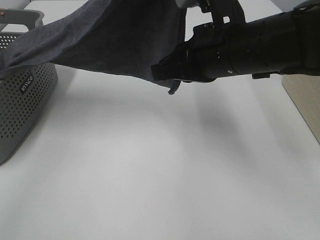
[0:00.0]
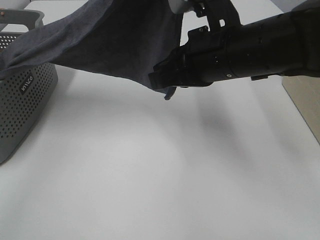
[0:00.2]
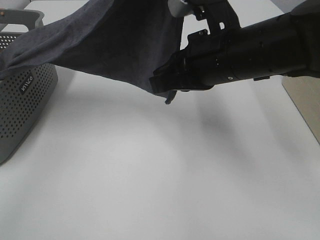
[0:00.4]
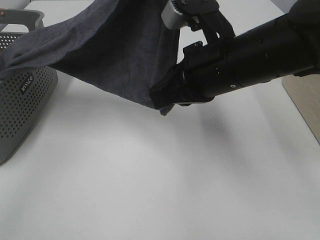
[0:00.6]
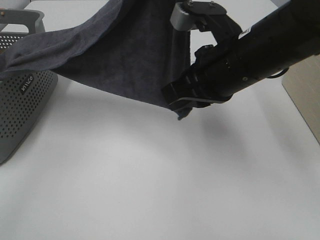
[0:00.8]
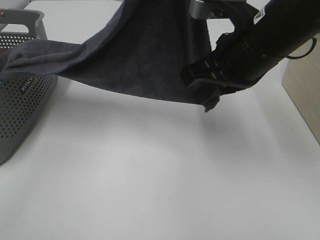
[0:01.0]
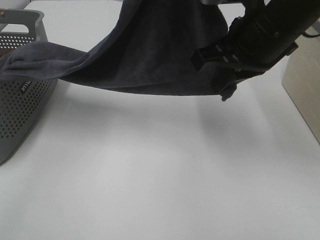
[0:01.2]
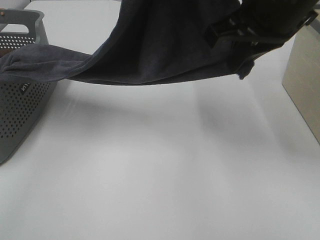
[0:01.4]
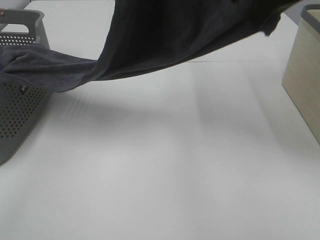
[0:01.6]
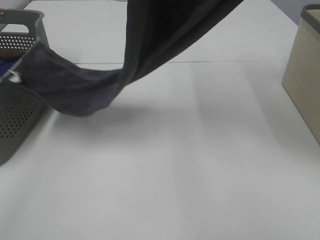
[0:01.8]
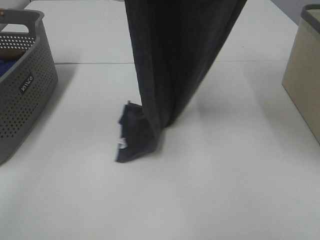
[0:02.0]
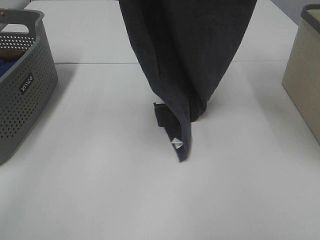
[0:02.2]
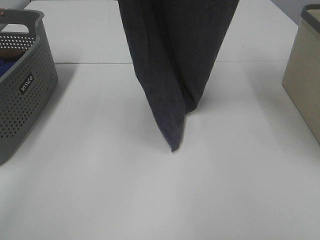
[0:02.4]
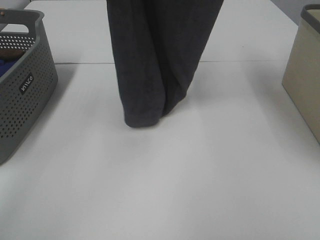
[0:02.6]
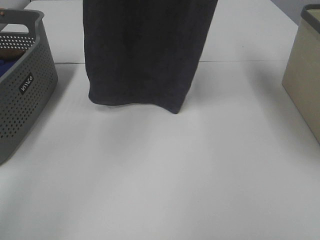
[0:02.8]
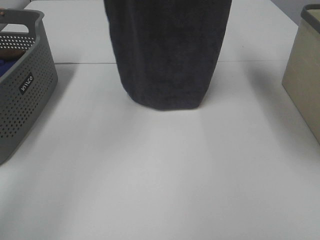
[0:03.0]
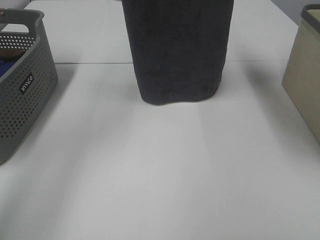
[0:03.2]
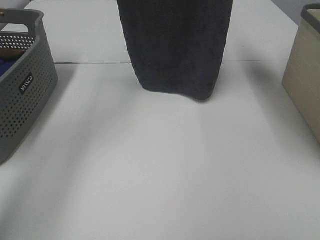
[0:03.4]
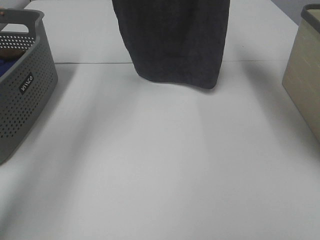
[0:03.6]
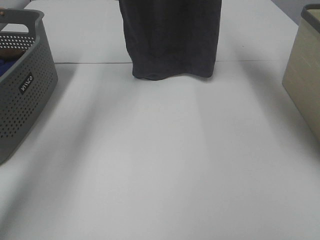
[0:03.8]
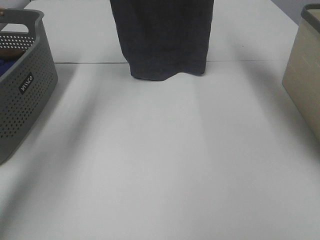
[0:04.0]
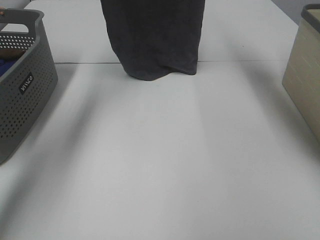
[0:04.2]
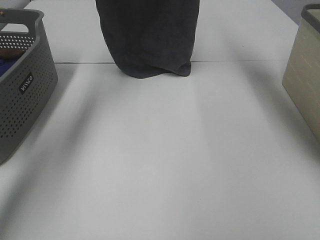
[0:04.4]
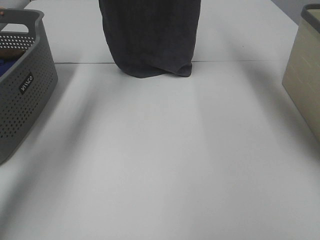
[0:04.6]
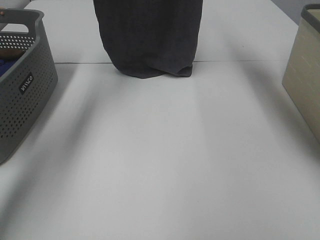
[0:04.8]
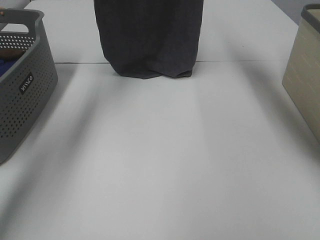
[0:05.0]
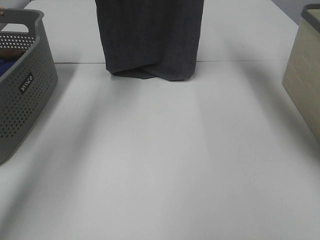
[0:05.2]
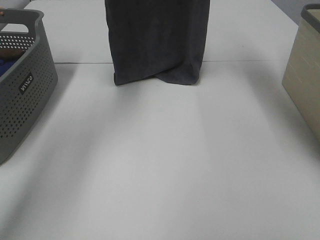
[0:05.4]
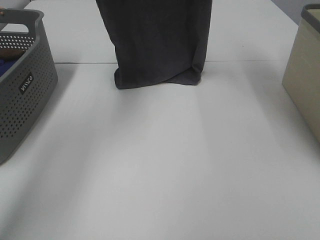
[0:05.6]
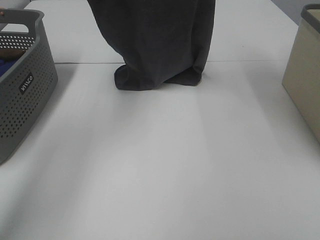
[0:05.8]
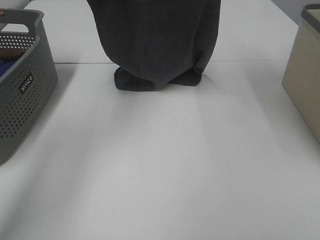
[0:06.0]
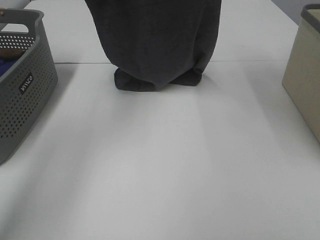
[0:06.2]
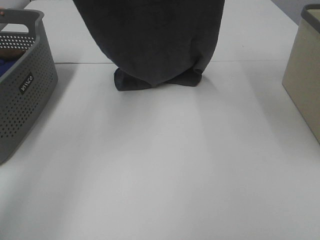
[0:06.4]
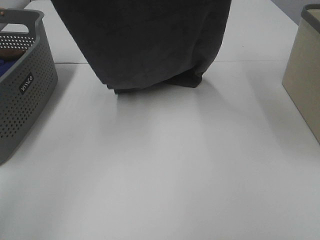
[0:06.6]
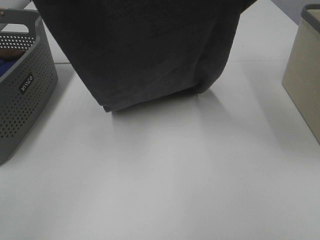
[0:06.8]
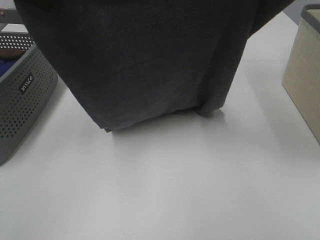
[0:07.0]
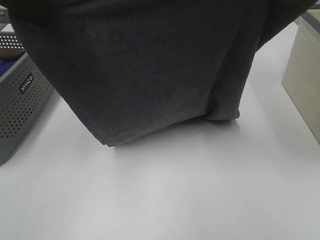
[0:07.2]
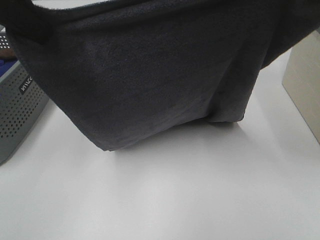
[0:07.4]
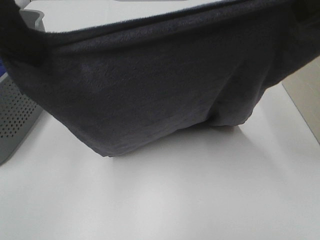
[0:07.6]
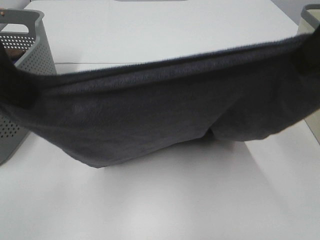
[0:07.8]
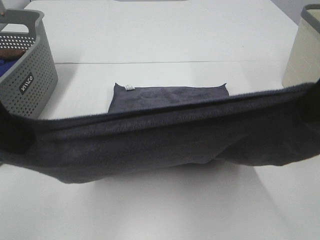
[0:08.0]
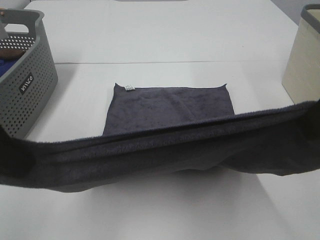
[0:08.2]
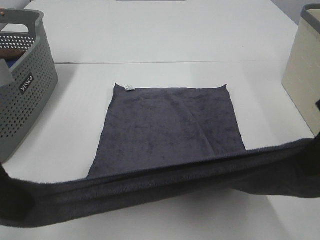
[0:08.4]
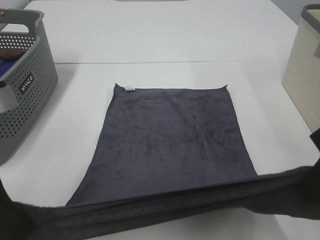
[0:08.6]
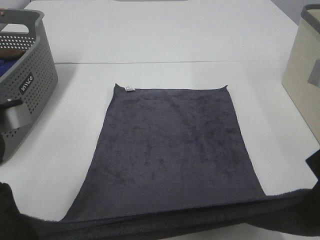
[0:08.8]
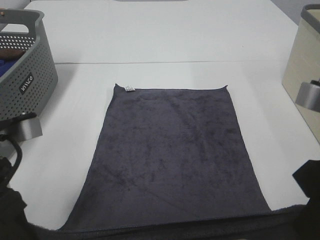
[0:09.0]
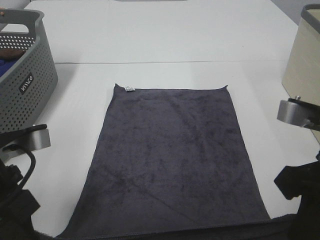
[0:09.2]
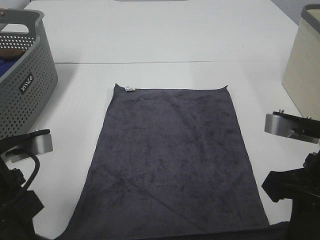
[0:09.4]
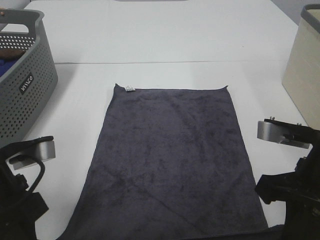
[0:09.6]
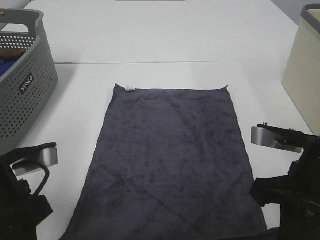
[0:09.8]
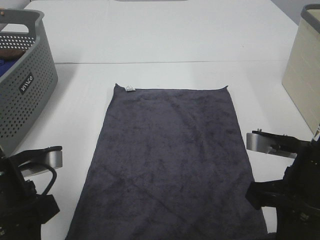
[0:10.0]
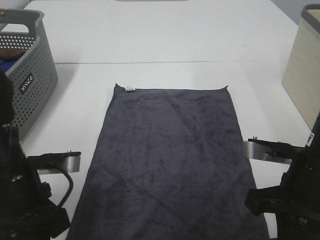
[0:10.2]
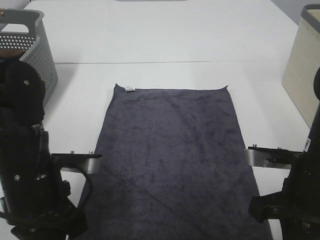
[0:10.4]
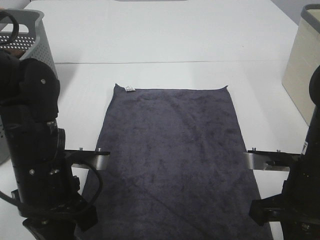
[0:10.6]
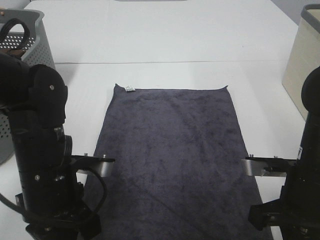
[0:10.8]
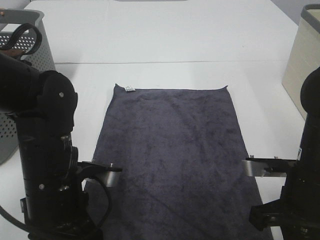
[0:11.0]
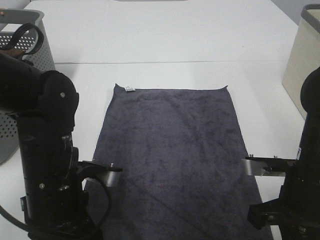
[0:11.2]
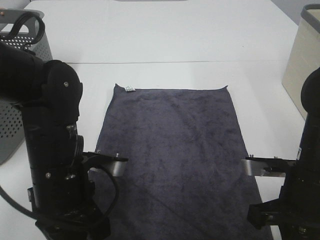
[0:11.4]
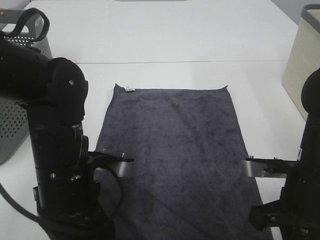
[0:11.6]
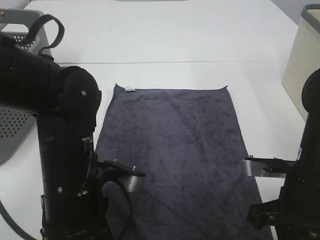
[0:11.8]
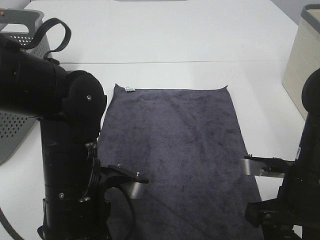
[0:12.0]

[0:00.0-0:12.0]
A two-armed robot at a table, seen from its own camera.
Task of the whole recording: Remove the towel and place it.
Step, 0:00.6 to 0:07.2: Left hand: spread the grey towel flat on the table.
Step, 0:00.6 to 0:07.2: Right hand: spread the grey towel flat on the table.
0:00.0 to 0:01.6: The right gripper heads upward, covering roughly 15 cm.
0:01.6 to 0:03.0: The right gripper heads upward and forward, covering about 15 cm; the left gripper travels forward and to the left by approximately 15 cm.
0:03.0 to 0:04.4: The left gripper heads forward and downward, covering roughly 10 cm, while the right gripper is displaced forward by roughly 10 cm.
0:04.4 to 0:06.0: Both grippers travel together backward, roughly 10 cm.
0:06.0 to 0:07.6: Both grippers travel together backward, some 20 cm.
0:07.6 to 0:09.0: The right gripper heads downward, covering approximately 15 cm; the left gripper travels downward and backward by approximately 15 cm.
0:09.0 to 0:10.4: The right gripper shifts approximately 10 cm downward; the left gripper heads downward, covering some 5 cm.
0:10.4 to 0:12.0: The left gripper shifts approximately 5 cm to the right, and opens; the right gripper opens.

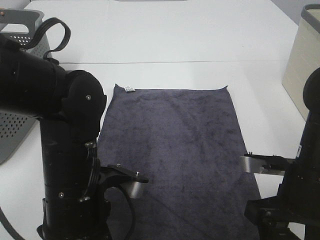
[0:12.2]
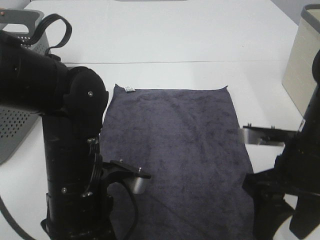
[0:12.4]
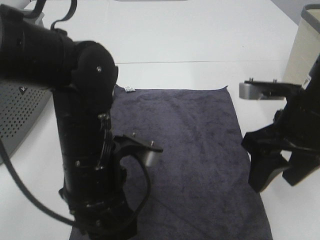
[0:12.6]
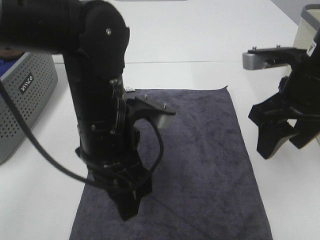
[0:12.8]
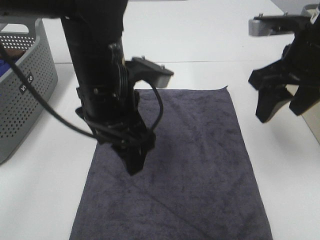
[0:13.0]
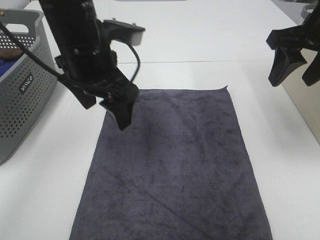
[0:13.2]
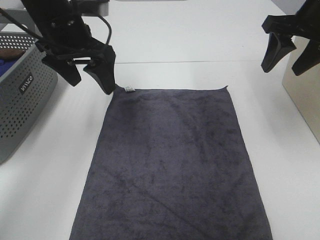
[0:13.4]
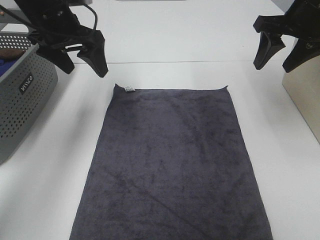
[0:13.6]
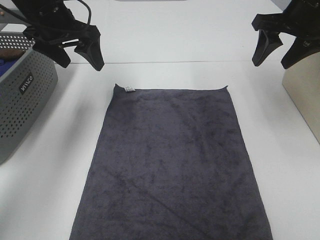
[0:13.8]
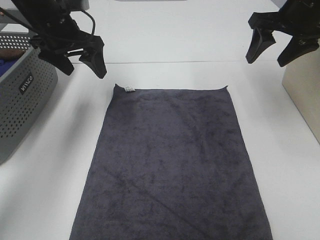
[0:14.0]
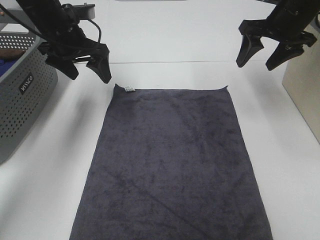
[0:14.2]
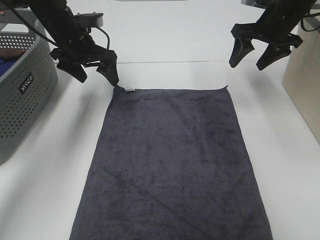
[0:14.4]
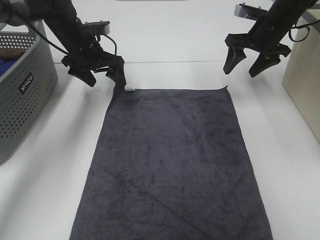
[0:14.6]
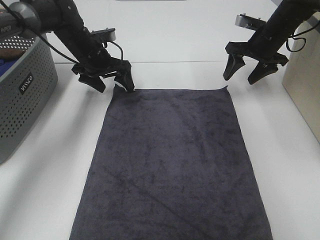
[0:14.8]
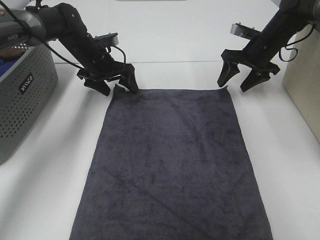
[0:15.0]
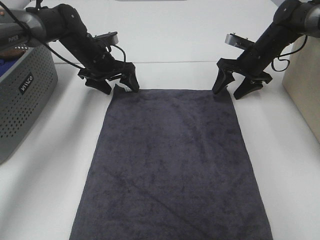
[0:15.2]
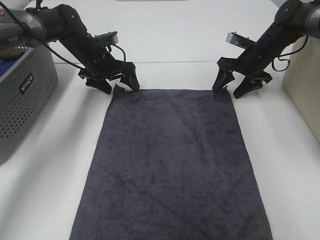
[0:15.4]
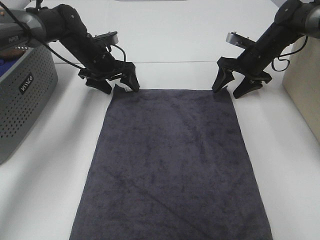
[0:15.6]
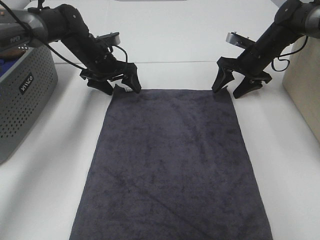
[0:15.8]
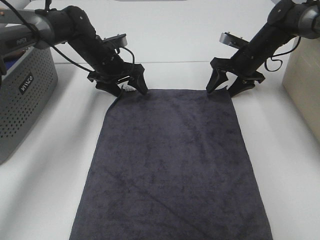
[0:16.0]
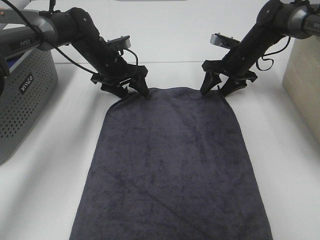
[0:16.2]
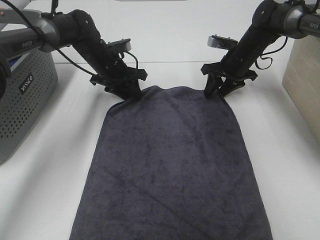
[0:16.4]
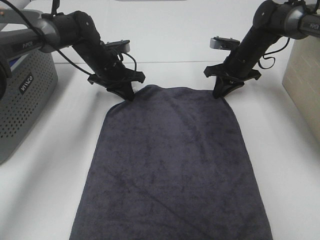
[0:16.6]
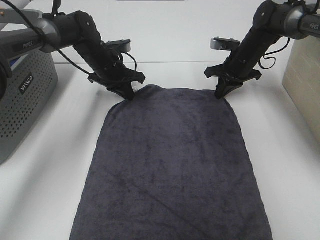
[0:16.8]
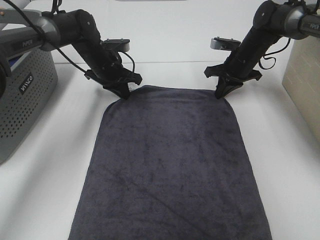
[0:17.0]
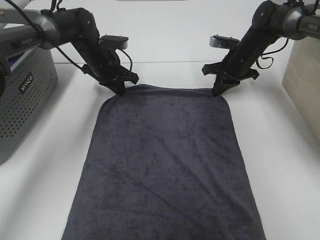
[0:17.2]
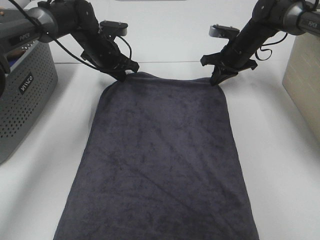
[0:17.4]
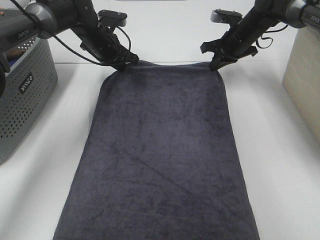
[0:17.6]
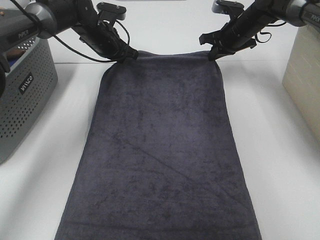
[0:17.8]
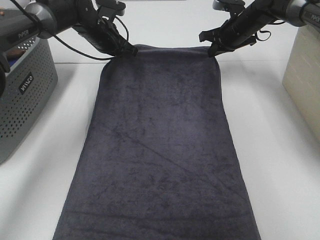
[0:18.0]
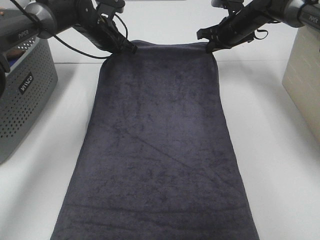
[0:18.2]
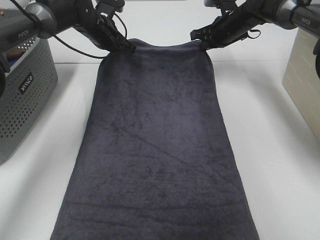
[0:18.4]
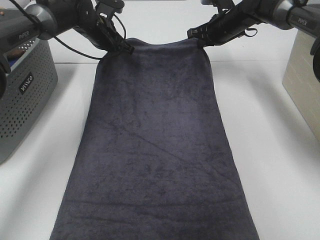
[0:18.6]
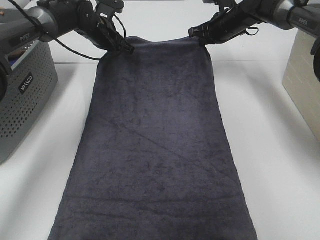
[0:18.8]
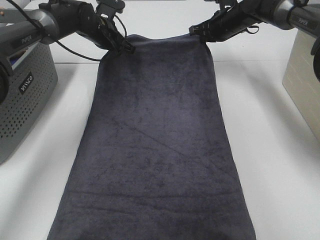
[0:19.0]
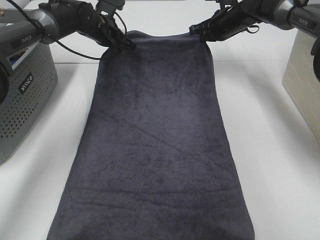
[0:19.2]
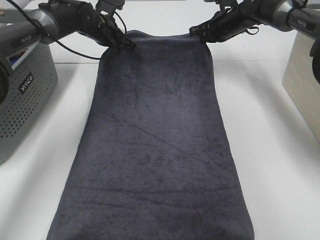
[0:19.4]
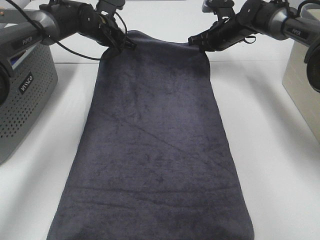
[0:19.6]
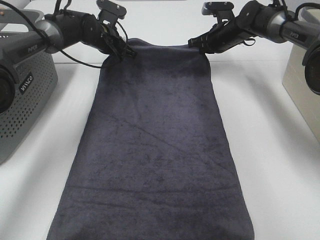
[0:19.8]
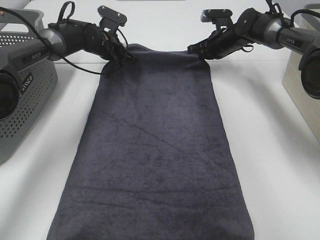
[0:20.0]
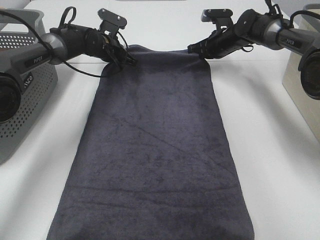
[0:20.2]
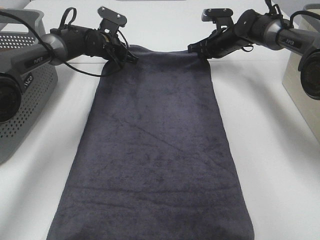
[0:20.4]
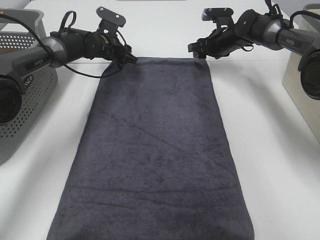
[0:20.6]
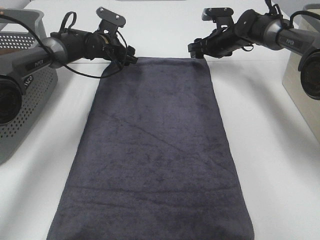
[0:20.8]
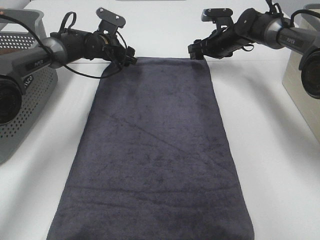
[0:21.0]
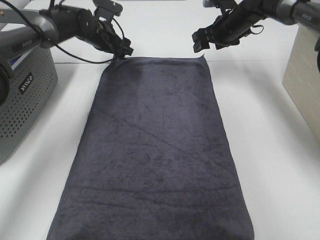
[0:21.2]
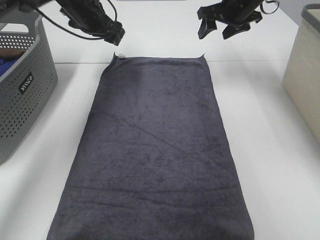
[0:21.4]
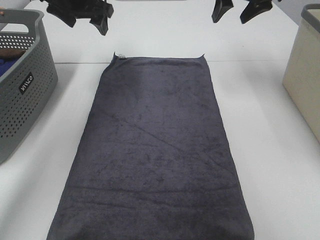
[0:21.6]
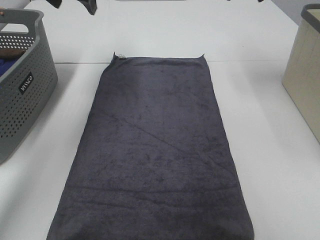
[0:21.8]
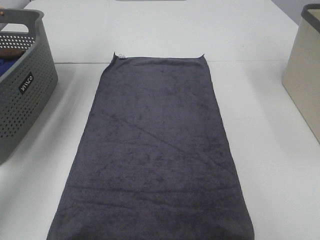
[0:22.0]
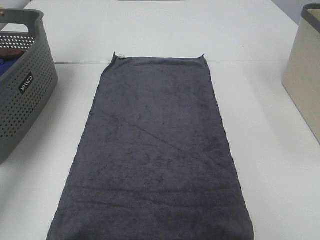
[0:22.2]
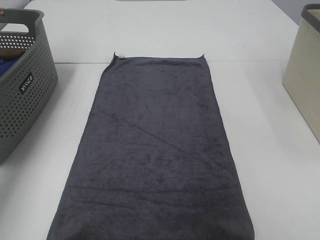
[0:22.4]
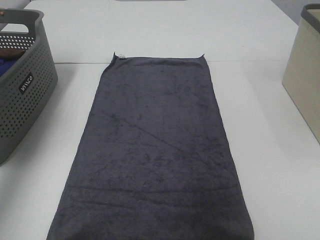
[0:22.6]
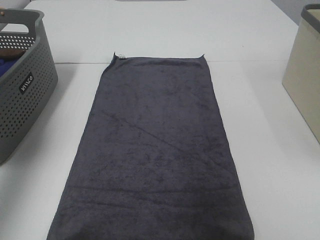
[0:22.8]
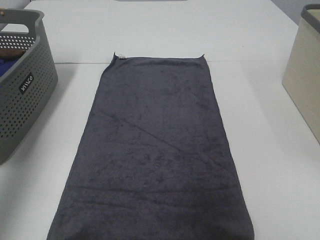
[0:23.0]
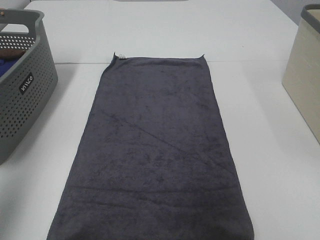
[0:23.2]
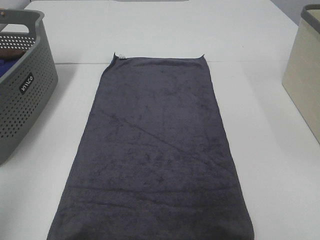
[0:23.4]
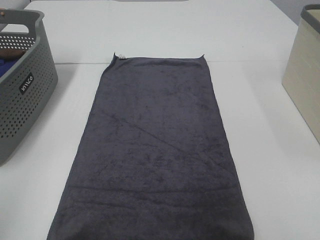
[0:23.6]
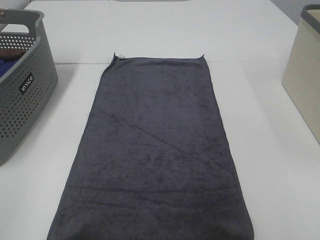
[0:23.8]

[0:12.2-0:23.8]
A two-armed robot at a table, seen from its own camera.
Task of the whole recording: Remove the towel and place it.
Step, 0:12.2 to 0:14.8: Left hand:adjust the gray towel.
Step, 0:12.2 to 0:14.8: Right hand:adjust the gray towel.
0:12.2 to 0:13.6: The grippers both shift forward and upward by about 25 cm.
0:13.6 to 0:15.0: Both grippers move downward and forward, roughly 20 cm.
0:15.0 to 0:16.6: The right gripper closes, while the left gripper closes up.
0:16.6 to 0:18.0: The grippers both shift upward by roughly 5 cm.
0:18.0 to 0:19.4: The grippers move only a little.
0:19.4 to 0:21.0: The right gripper opens its fingers. The left gripper travels downward by about 5 cm, and opens up.
0:21.0 to 0:22.4: The right gripper travels upward and backward by about 35 cm. The left gripper is displaced upward, to the left and backward by roughly 35 cm.
0:22.4 to 0:23.8: The left gripper moves backward, about 40 cm.
